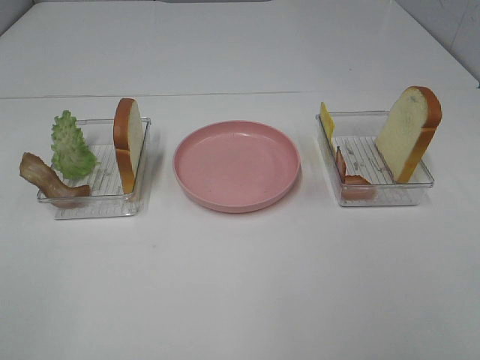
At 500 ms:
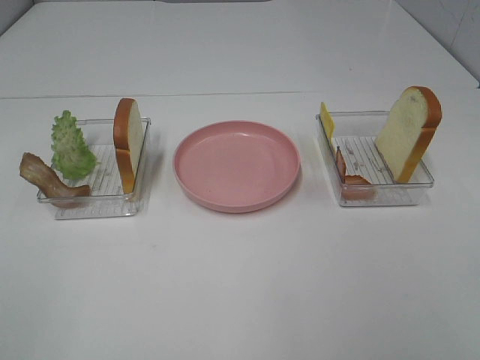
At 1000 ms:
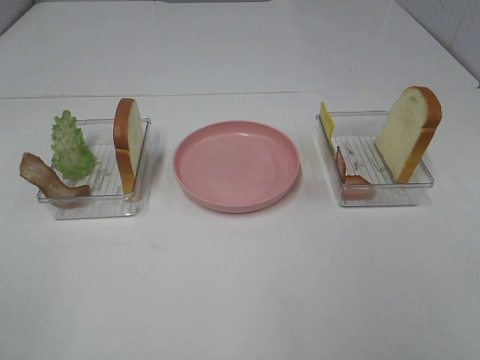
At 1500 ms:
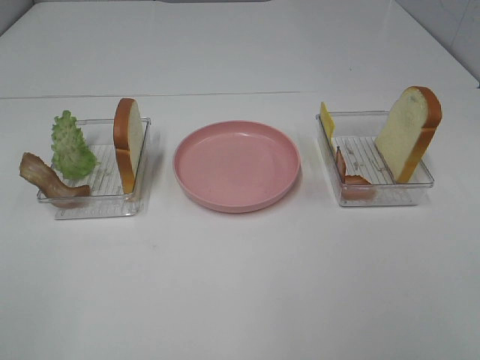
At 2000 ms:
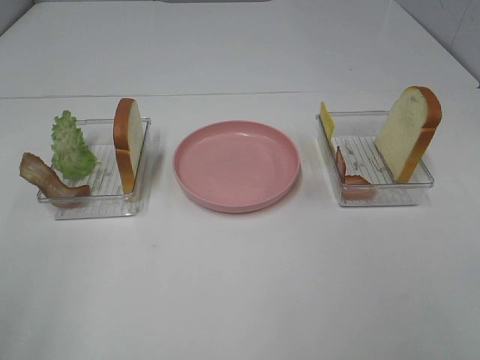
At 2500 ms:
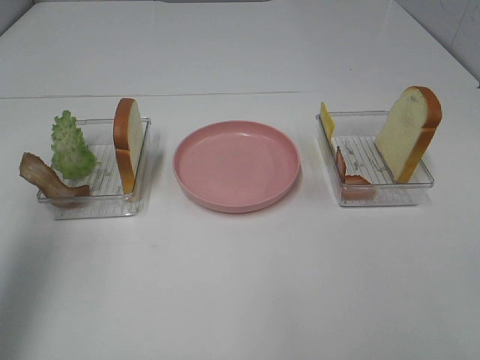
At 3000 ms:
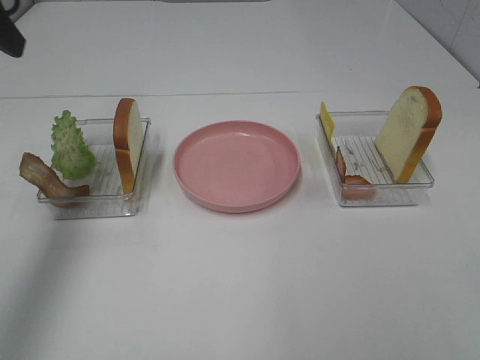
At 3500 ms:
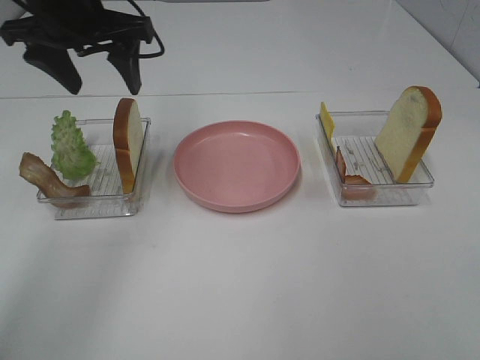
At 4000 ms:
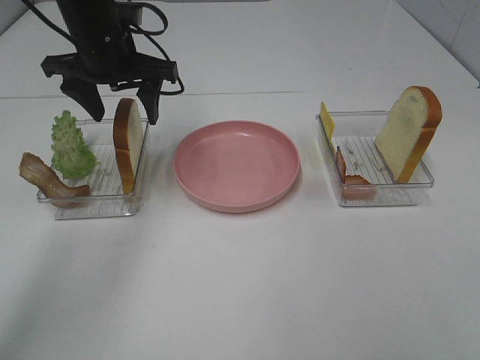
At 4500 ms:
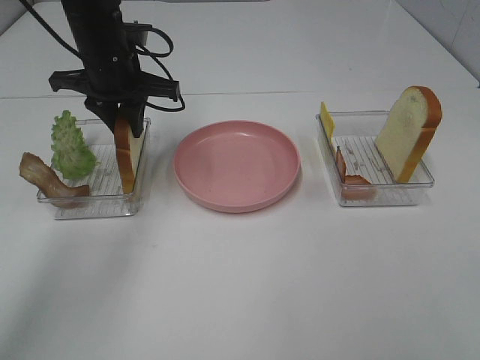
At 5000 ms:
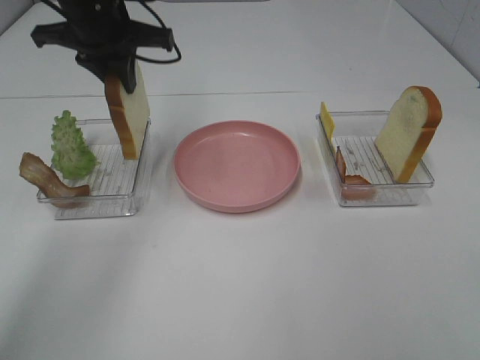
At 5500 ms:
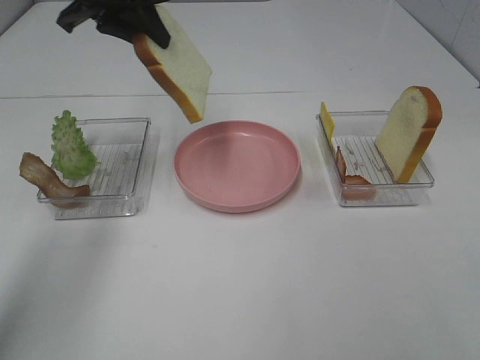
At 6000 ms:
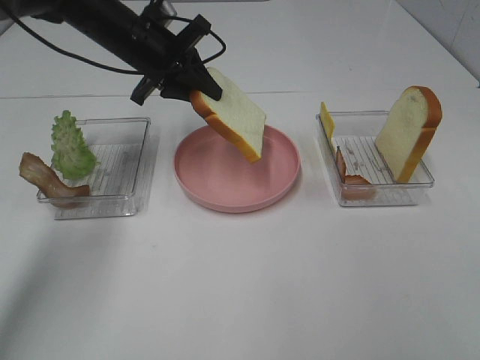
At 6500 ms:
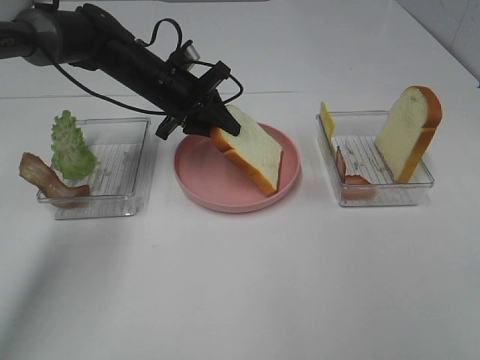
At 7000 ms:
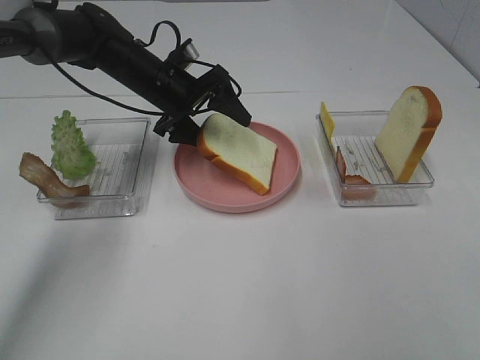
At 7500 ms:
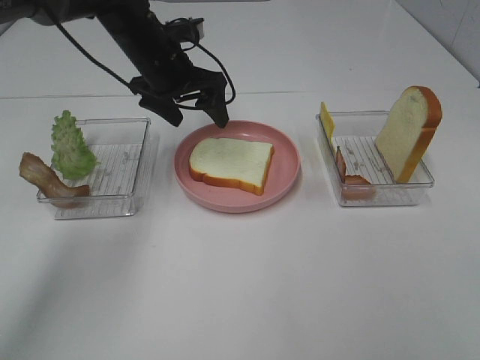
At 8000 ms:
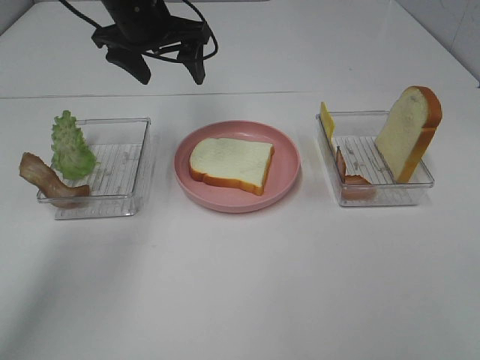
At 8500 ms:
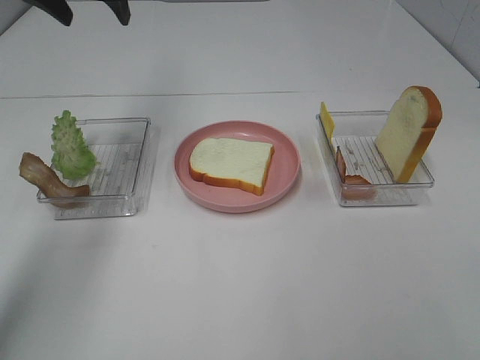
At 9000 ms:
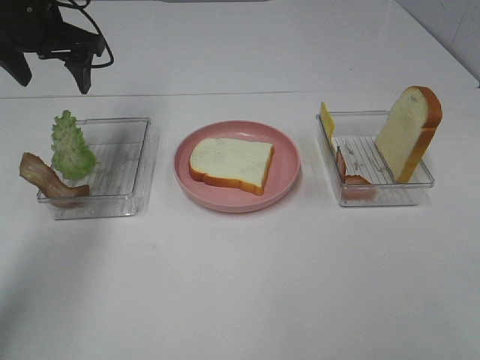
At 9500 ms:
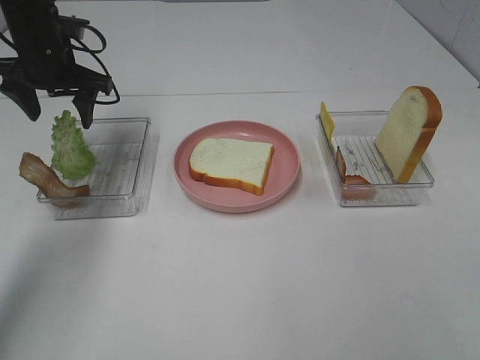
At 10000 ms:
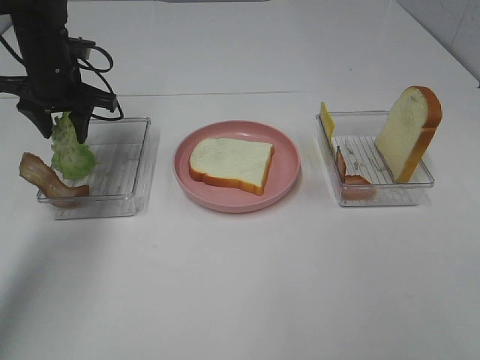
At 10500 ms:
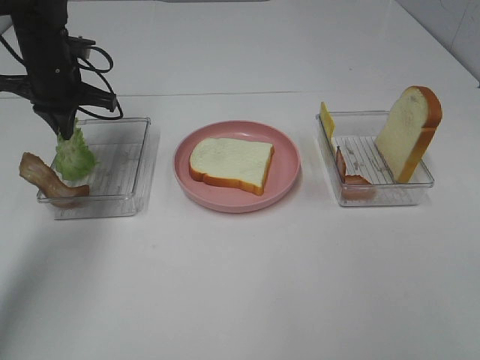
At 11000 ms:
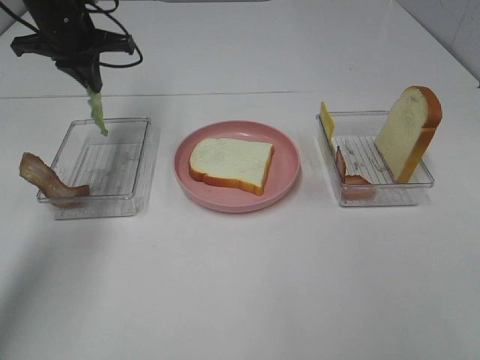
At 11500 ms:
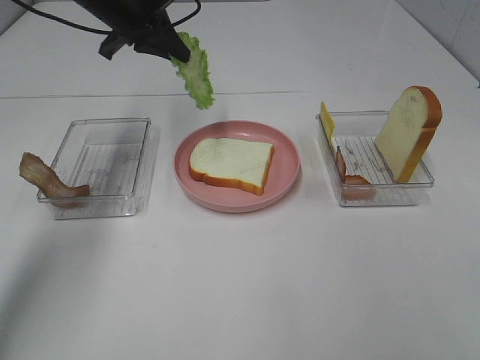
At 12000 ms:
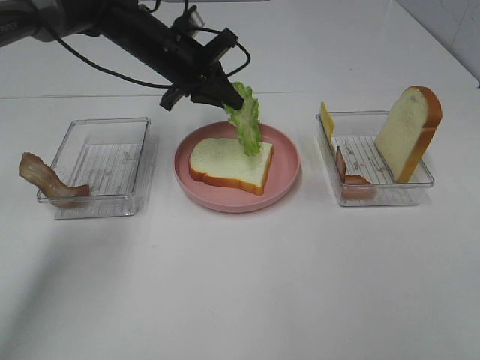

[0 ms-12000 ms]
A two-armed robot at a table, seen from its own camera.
Task of the whole recording: Make sandwiches.
Step, 0 ms to 4500 ms: Left hand:grab the bread slice.
Step, 5000 ms to 7500 ms: Left hand:place the bread slice on the plate.
Step, 8000 ms to 10500 ms: Left hand:grab the lettuce slice.
2000 ms to 4000 ms: The left gripper travels forward and to the right by some 40 cm.
4000 ms to 6000 ms: The left gripper moves roughly 5 cm upward and comes back, and closes.
6000 ms to 8000 ms: The left gripper moves upward, some 5 cm, and opens its fingers.
8000 ms to 10000 ms: The left gripper heads to the left and downward, covering about 15 cm, and closes.
10000 ms to 12000 ms: The left gripper goes approximately 15 cm to the right, and closes up.

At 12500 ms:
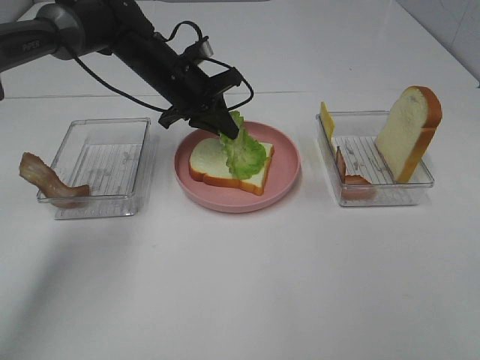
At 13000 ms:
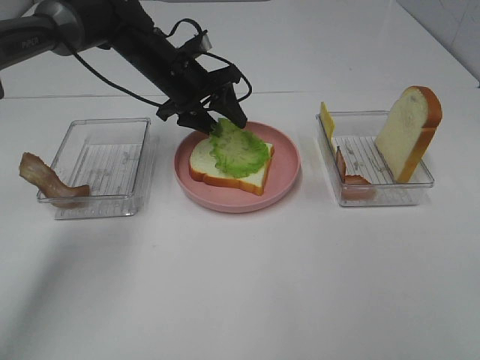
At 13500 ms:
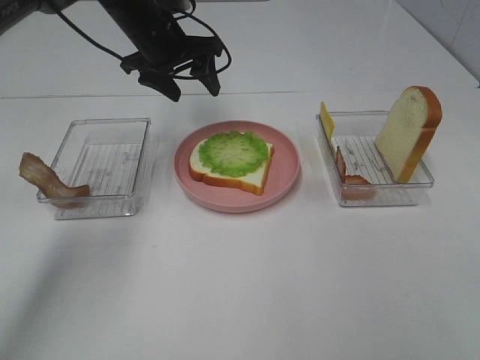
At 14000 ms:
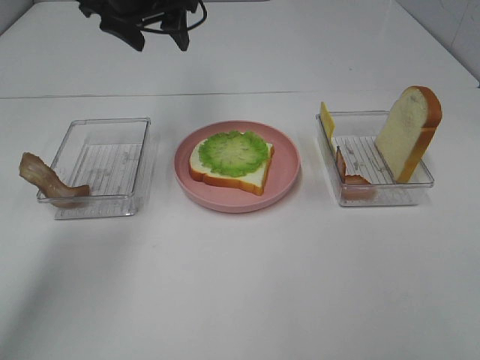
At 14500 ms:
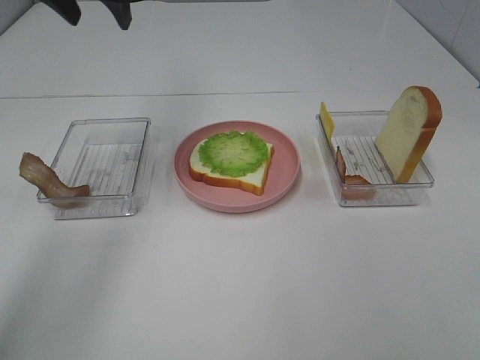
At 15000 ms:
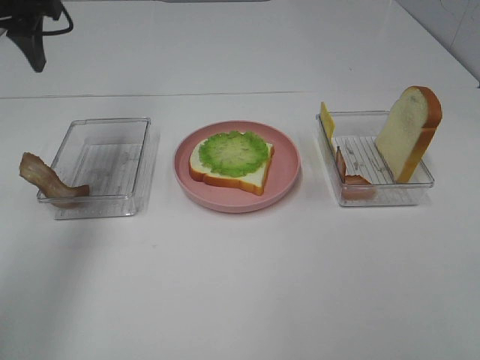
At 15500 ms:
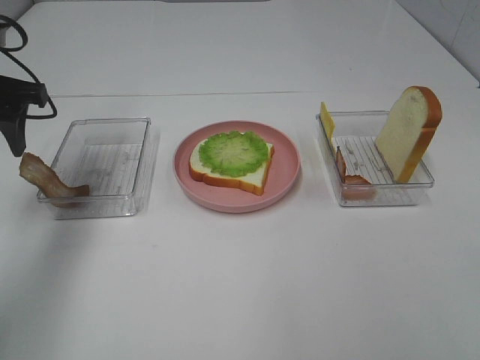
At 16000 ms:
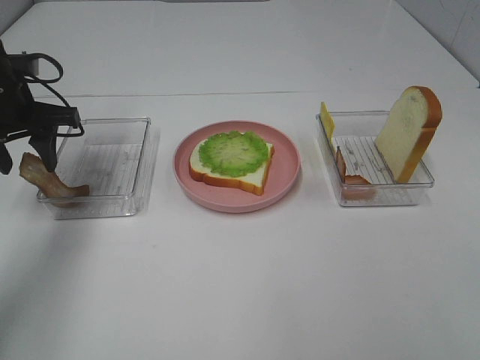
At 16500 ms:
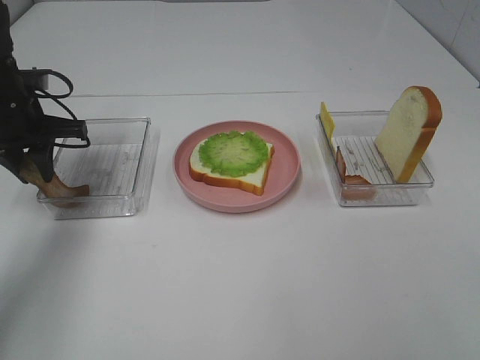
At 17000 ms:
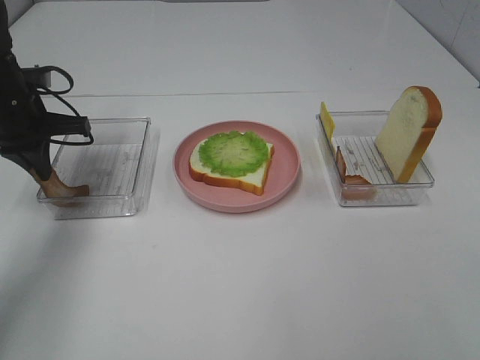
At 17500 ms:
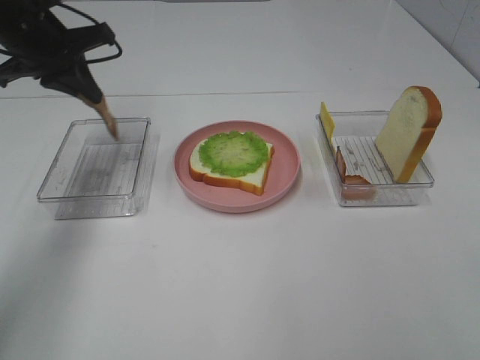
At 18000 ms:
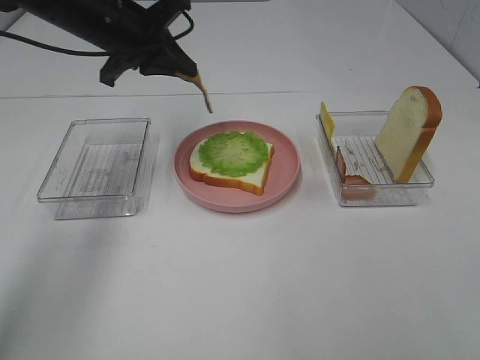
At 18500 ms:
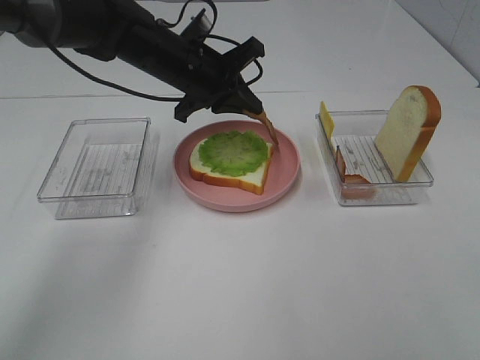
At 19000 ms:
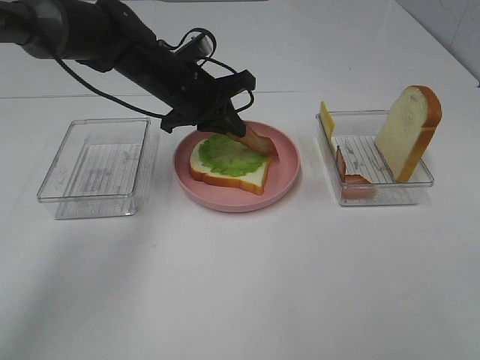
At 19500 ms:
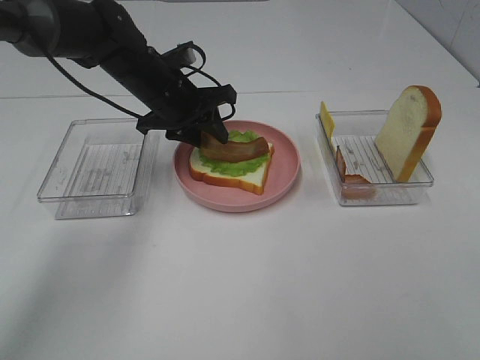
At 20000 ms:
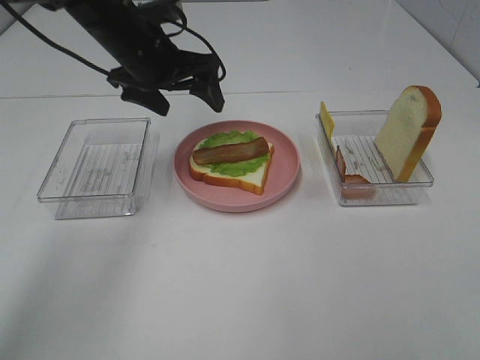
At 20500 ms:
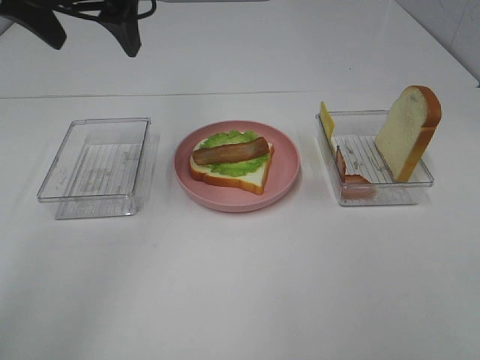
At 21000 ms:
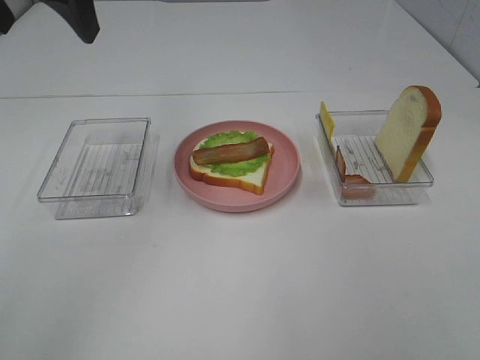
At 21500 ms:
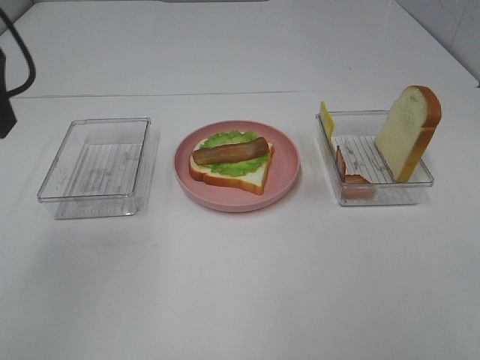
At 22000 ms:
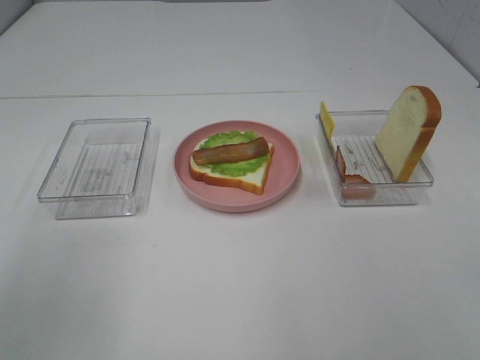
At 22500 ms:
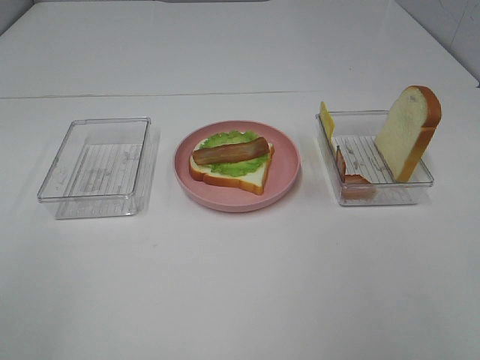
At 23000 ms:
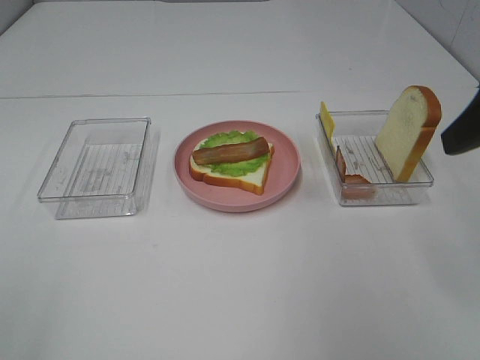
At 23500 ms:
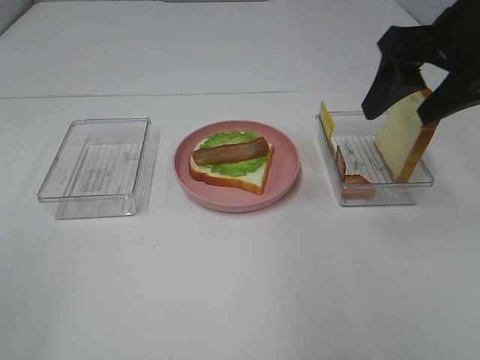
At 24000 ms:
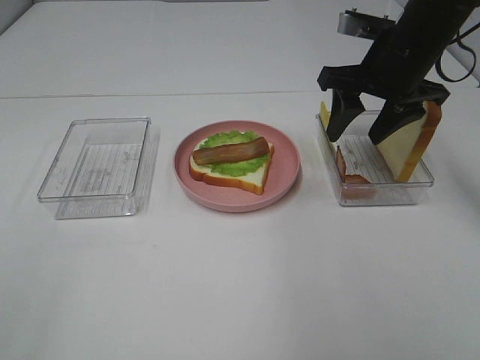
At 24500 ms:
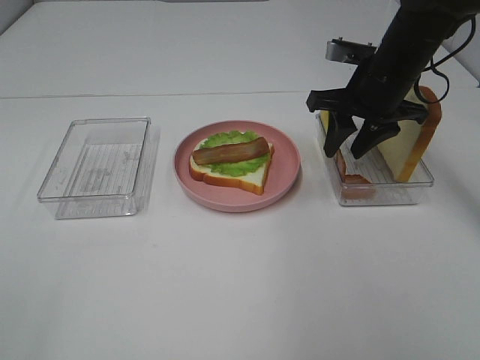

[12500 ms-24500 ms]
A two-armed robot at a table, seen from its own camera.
Task of the whole recording: Make sandwiches.
Step, 13500 ms to 16500 ms: Left hand:grab the bacon.
Step, 17000 ms to 19500 ms: Left hand:place bacon on lettuce slice.
12500 ms to 14500 ms: The left gripper travels upward and to the left by roughly 20 cm, and opens its fingers.
14500 ms to 16500 ms: The left gripper heads downward and to the left, covering about 20 cm, and closes.
16500 ms to 18500 ms: The left gripper is displaced to the right by approximately 20 cm.
18500 ms to 20500 ms: The left gripper is displaced upward, to the left and backward by roughly 20 cm, and opens its fingers.
20500 ms to 22500 ms: The right gripper travels forward by some 10 cm. The left gripper is displaced backward and to the left by approximately 35 cm.
22500 ms to 24500 ms: The right gripper shifts roughly 35 cm forward and downward, and closes.

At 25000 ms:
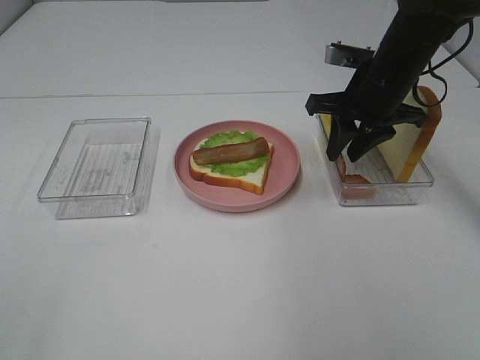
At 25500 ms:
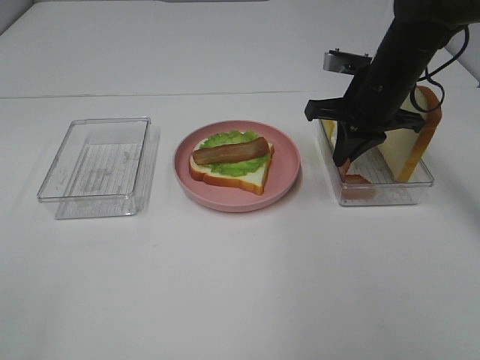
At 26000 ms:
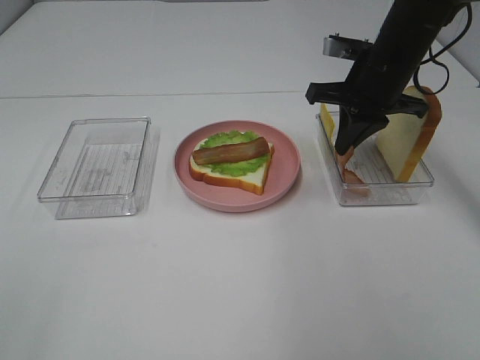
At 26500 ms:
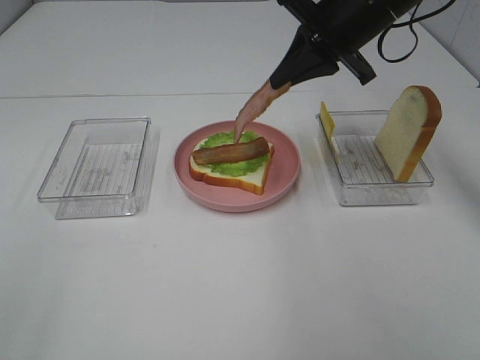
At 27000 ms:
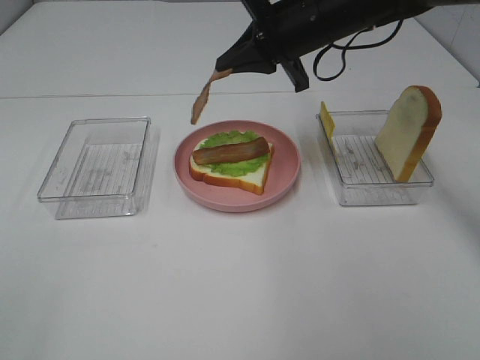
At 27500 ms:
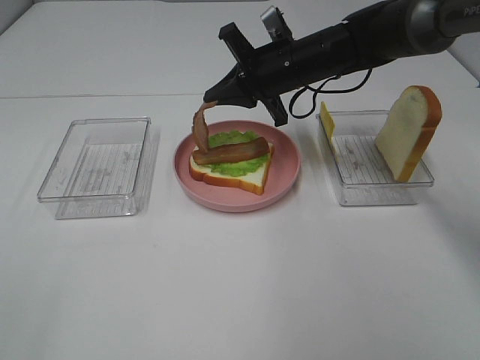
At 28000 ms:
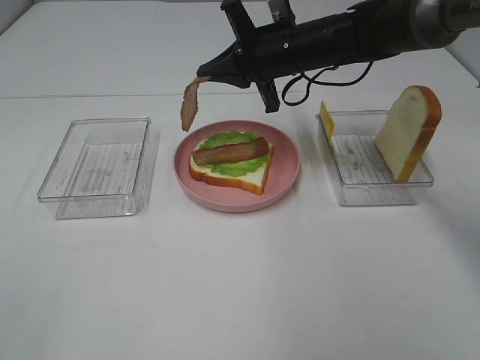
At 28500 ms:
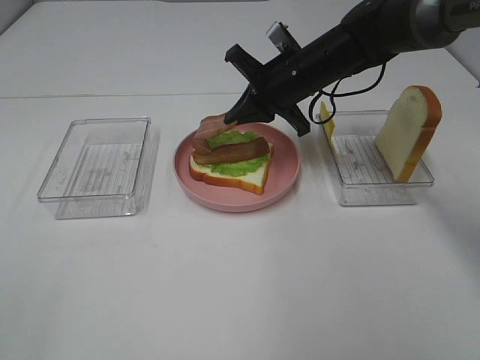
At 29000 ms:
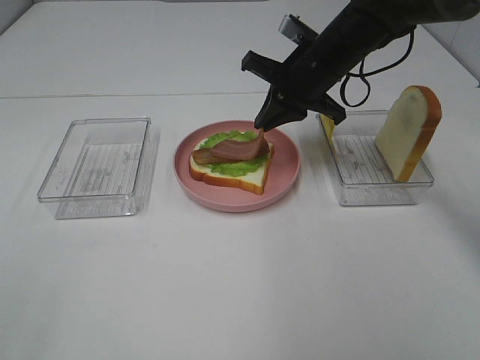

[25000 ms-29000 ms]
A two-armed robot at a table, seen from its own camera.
Task of the whole recording: Make sandwiches.
25000 ms to 27000 ms: The right gripper is displaced to the left by some 10 cm, and closes up.
